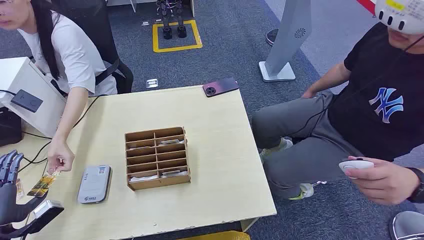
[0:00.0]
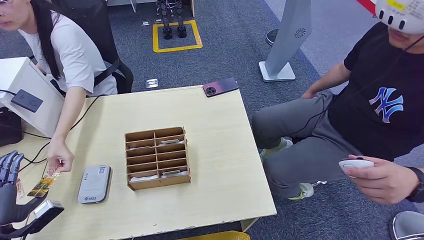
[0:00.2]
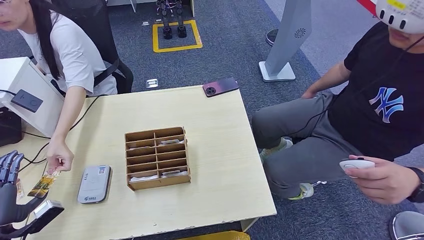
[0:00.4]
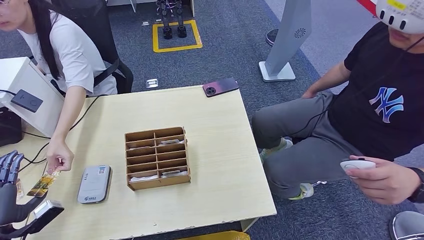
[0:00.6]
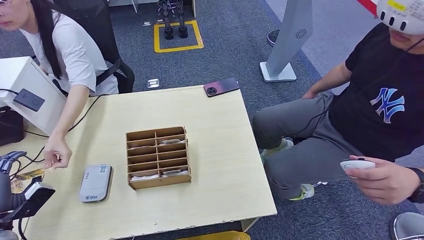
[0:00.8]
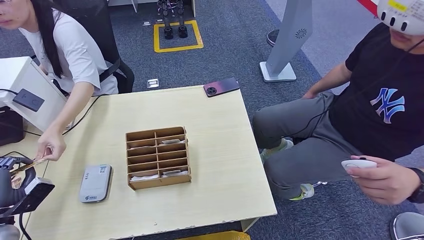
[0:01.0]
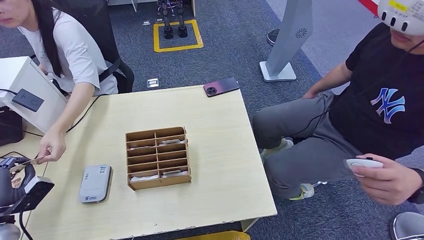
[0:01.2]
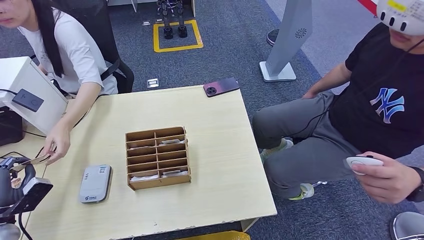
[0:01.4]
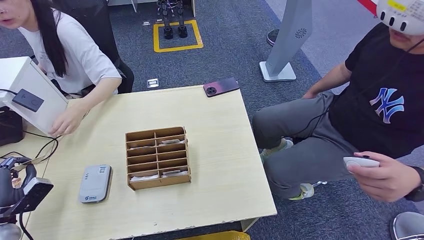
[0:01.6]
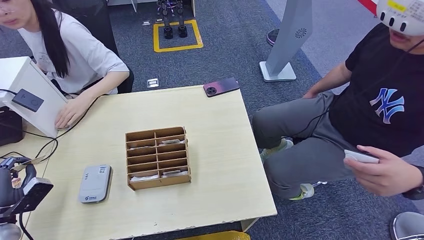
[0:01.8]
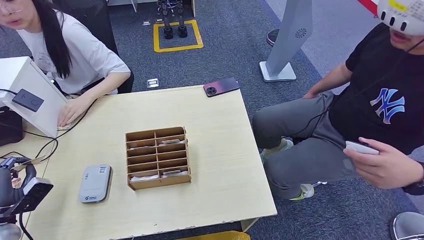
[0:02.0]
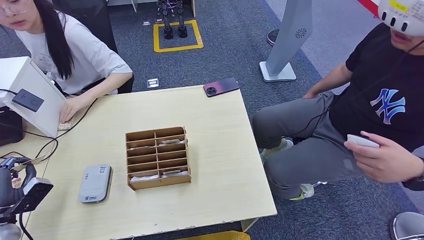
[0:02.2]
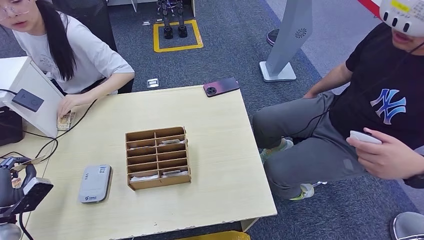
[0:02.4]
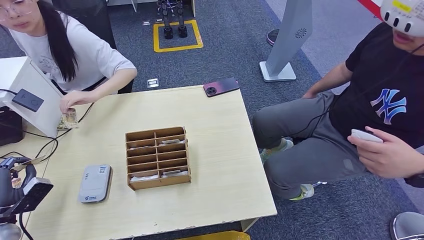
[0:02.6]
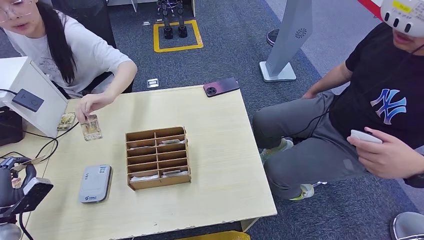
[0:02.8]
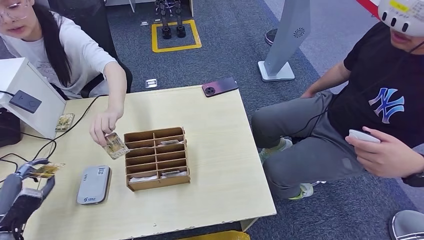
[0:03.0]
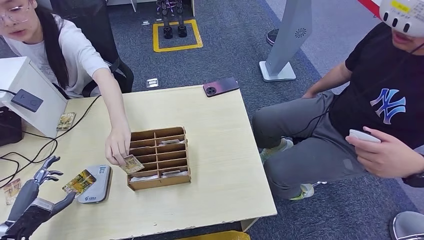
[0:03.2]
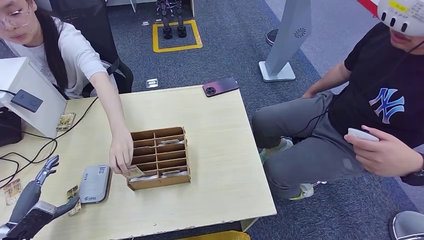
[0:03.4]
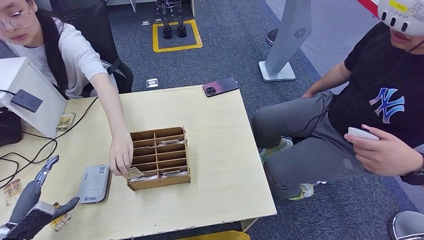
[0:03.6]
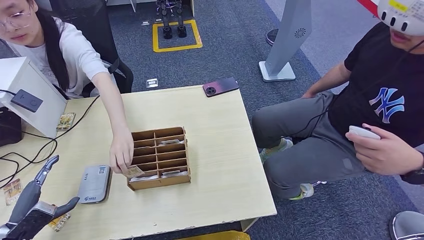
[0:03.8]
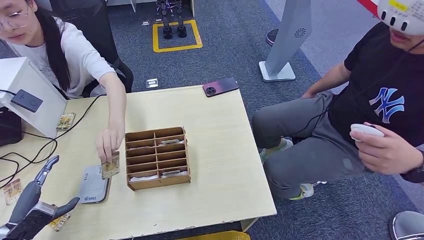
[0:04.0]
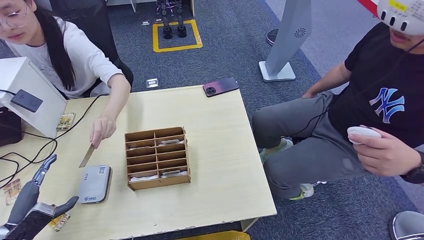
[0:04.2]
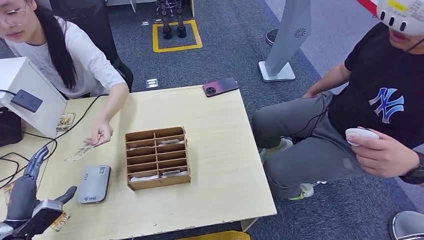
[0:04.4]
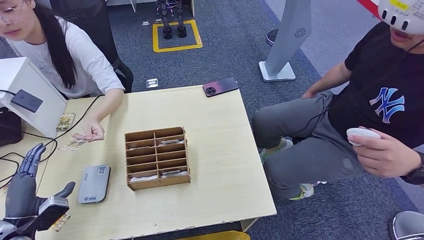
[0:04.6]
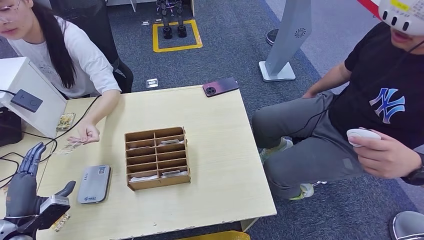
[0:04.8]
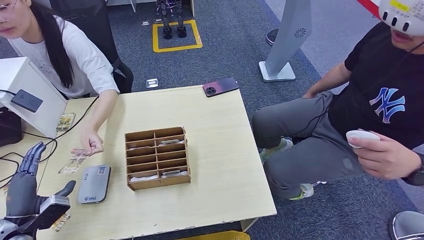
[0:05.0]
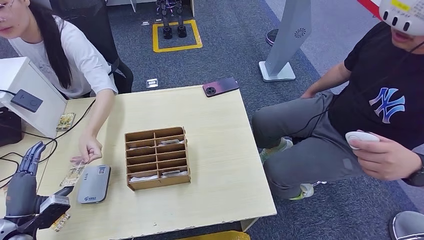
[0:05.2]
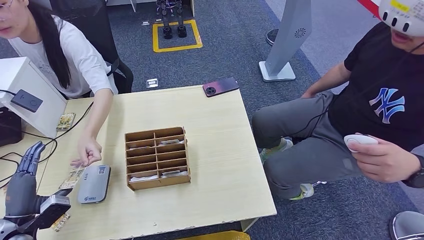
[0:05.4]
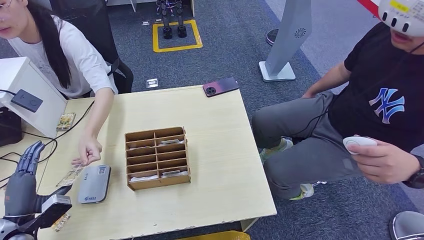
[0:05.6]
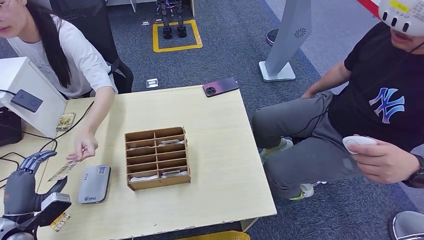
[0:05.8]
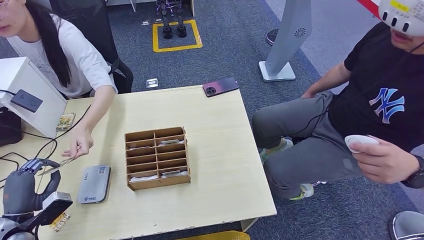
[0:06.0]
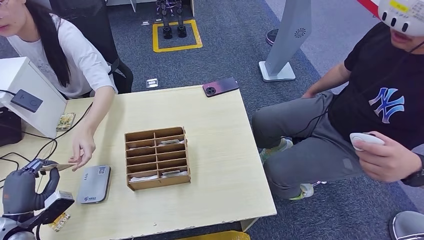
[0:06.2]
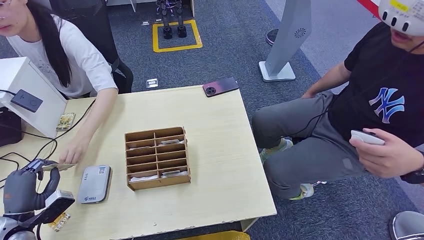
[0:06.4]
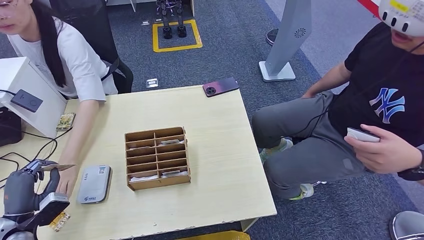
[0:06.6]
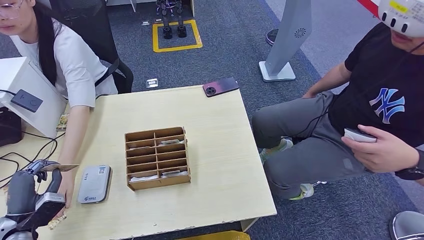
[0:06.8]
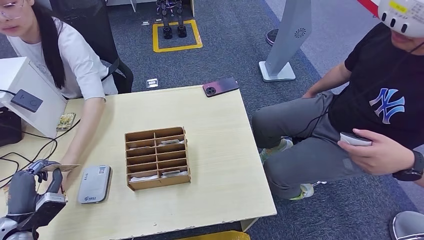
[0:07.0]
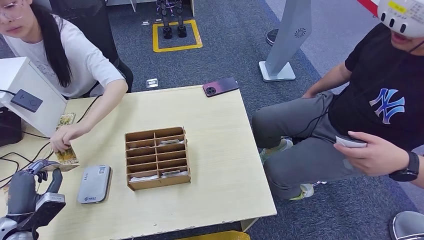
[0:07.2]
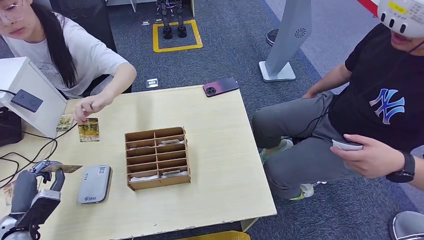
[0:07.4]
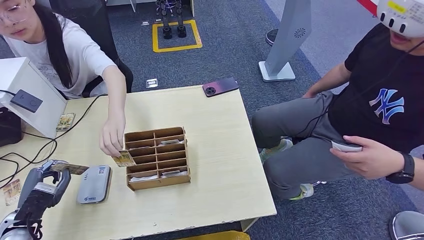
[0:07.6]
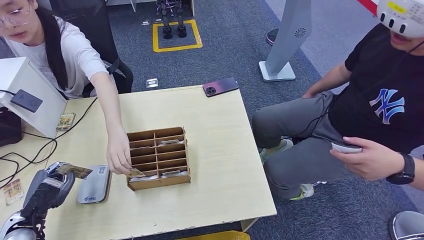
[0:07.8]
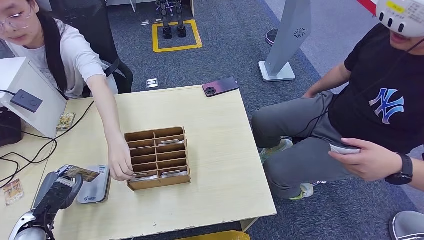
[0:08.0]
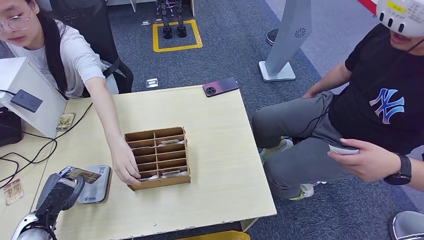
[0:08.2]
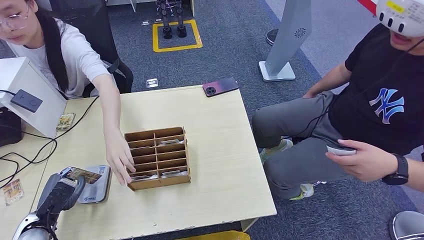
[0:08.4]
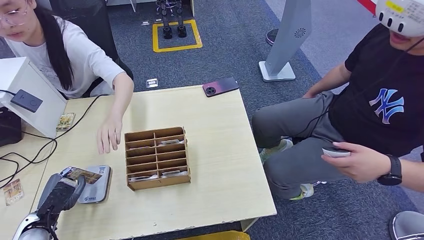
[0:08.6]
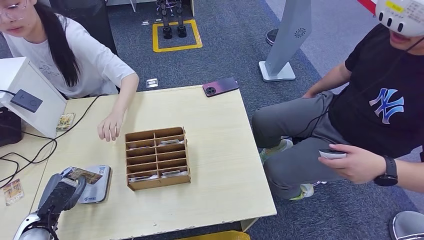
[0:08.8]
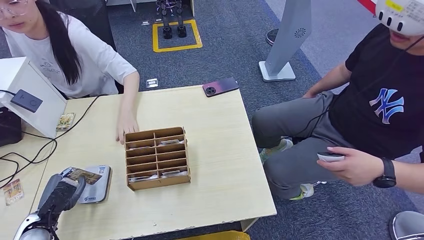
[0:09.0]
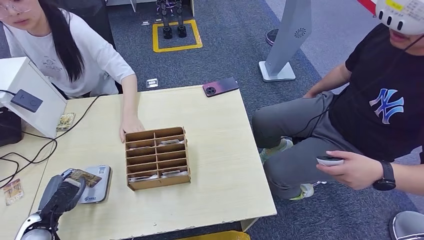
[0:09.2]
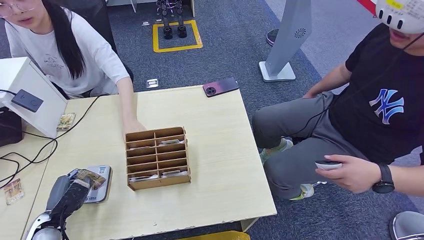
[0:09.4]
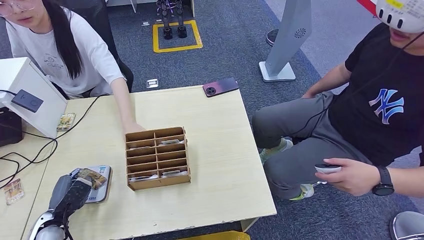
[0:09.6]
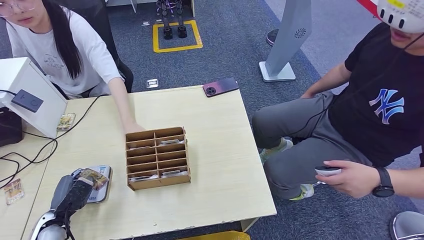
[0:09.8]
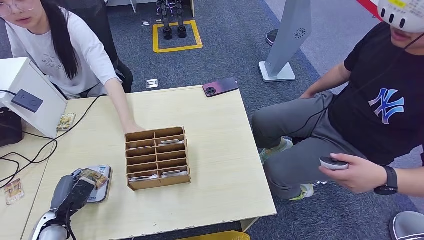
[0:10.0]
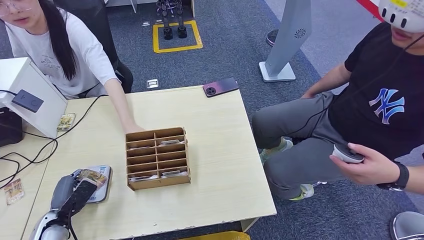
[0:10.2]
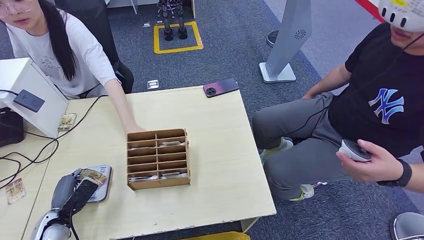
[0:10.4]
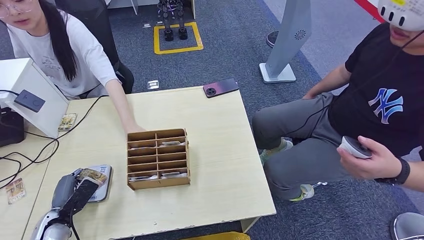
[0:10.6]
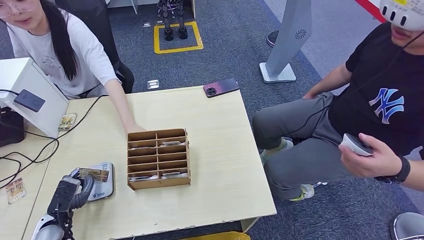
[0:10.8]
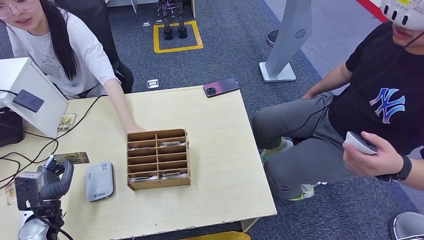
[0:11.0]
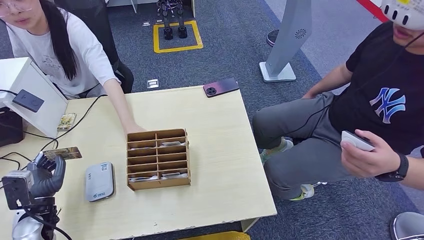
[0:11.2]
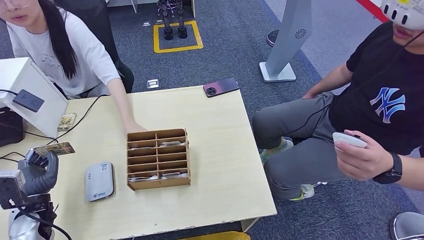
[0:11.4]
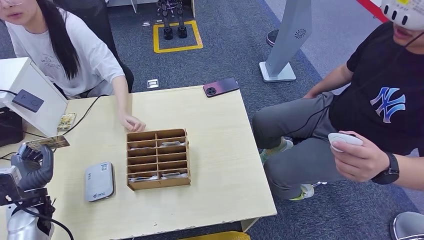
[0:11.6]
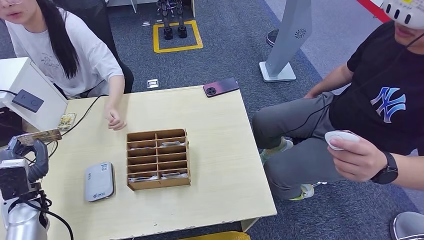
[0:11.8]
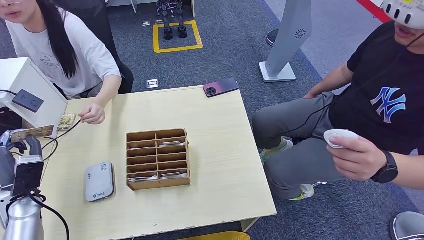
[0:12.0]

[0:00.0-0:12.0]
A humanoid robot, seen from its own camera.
Step, 0:00.0 to 0:01.6: Take the ID card from the person's hand.
Step, 0:01.8 to 0:08.8: Place the ID card on the card reader.
0:03.0 to 0:06.0: The hands move only a little.
0:07.6 to 0:09.0: The hands move only a little.
0:09.0 to 0:10.4: The hands stay close to where they were, moving slightly.
0:10.4 to 0:12.0: The left hand is displaced upward and forward by some 10 cm.

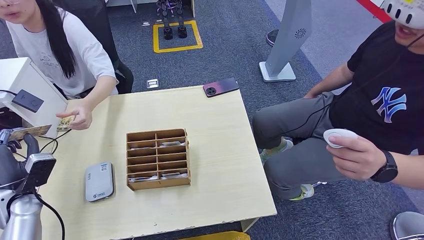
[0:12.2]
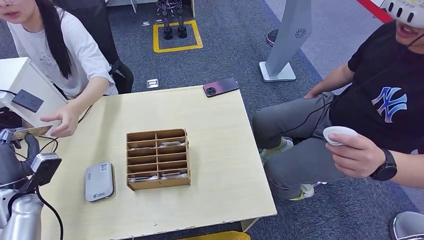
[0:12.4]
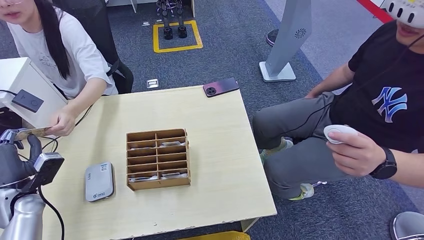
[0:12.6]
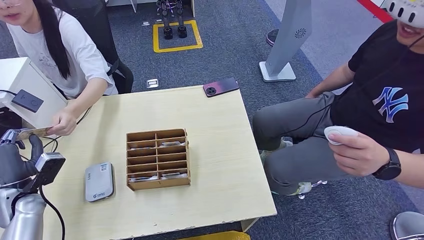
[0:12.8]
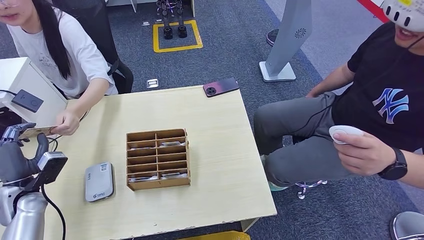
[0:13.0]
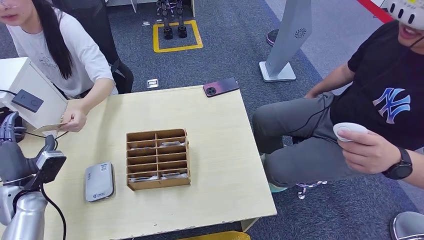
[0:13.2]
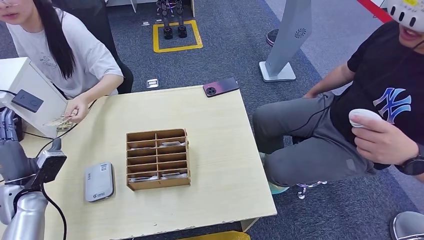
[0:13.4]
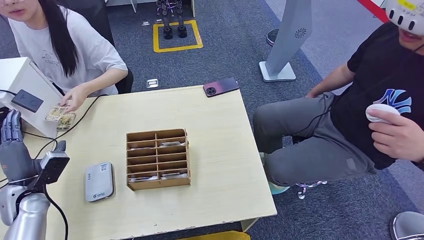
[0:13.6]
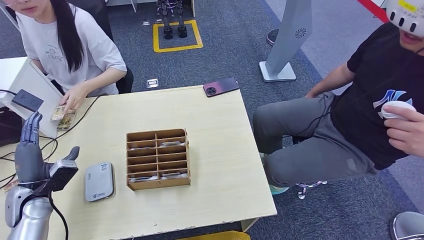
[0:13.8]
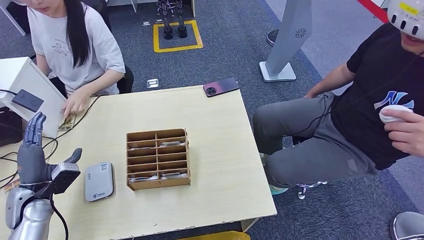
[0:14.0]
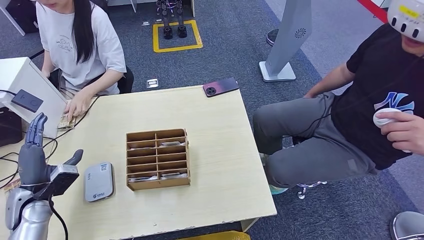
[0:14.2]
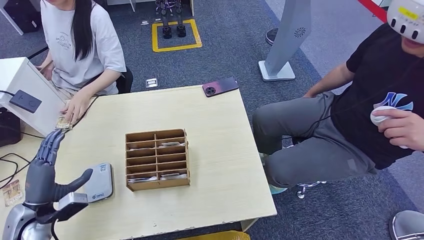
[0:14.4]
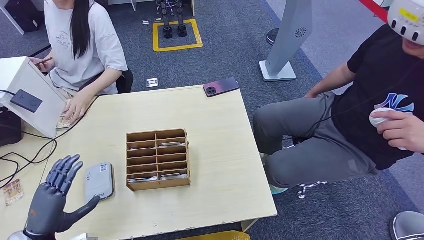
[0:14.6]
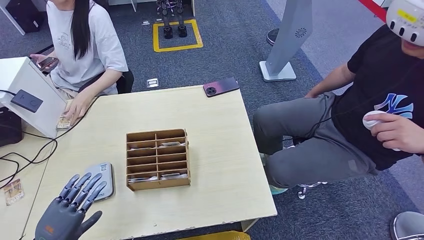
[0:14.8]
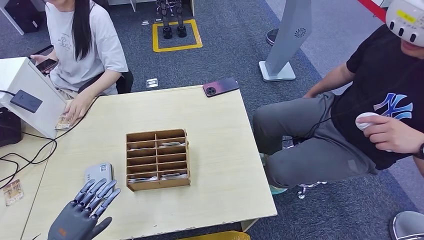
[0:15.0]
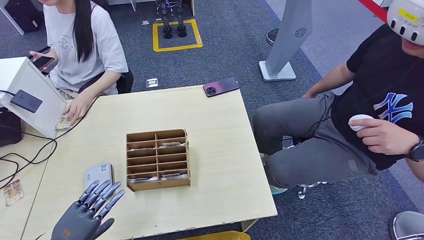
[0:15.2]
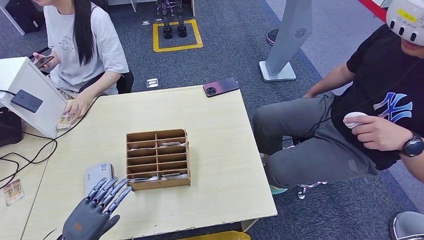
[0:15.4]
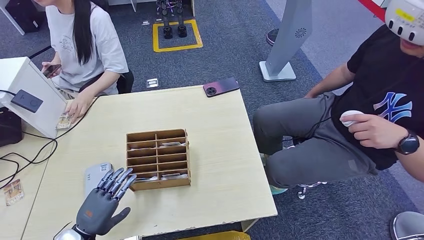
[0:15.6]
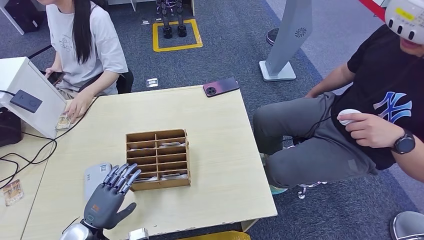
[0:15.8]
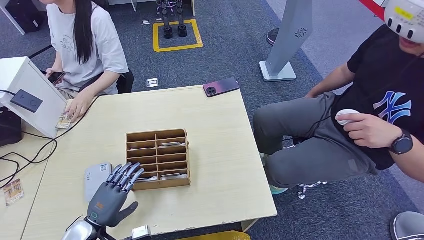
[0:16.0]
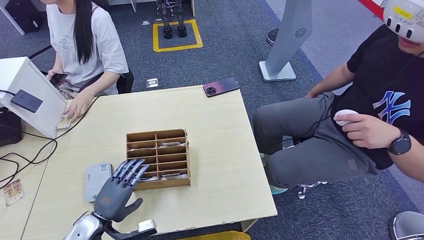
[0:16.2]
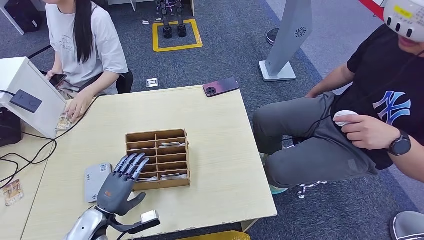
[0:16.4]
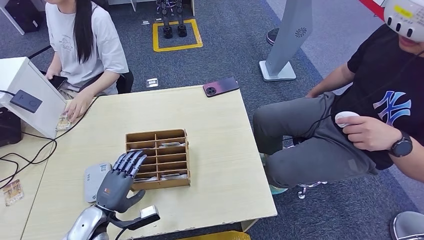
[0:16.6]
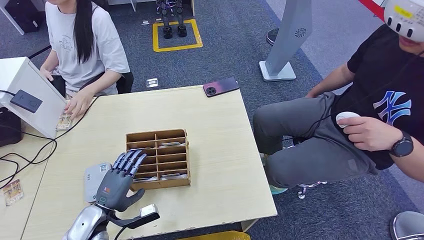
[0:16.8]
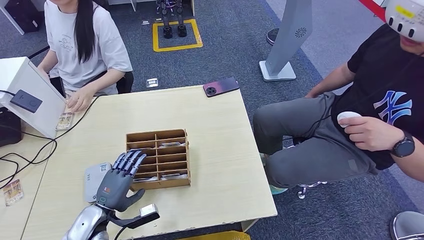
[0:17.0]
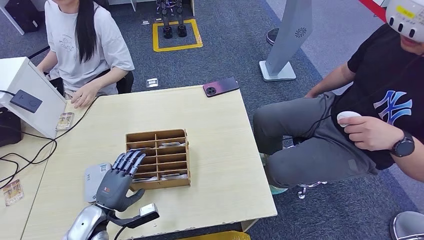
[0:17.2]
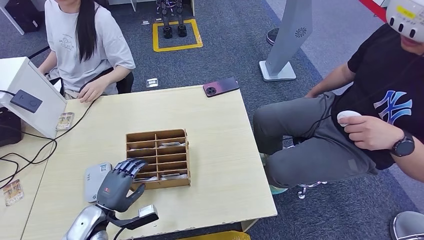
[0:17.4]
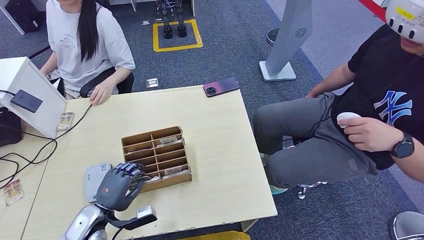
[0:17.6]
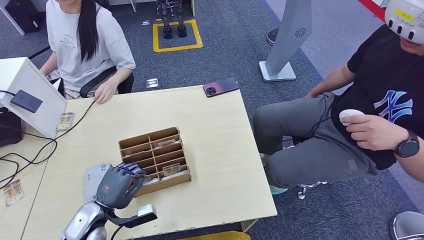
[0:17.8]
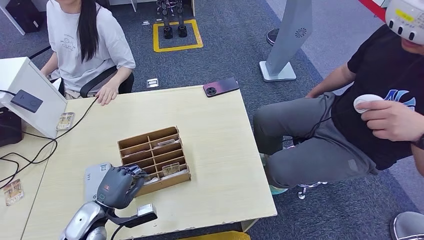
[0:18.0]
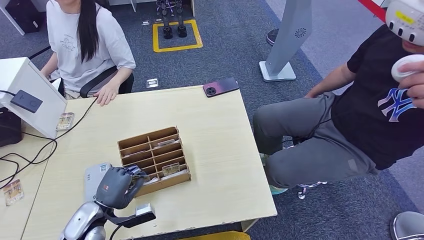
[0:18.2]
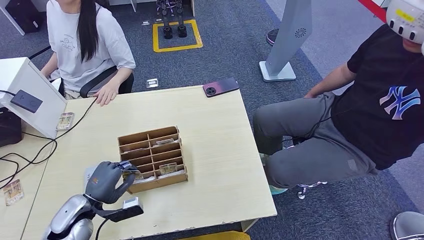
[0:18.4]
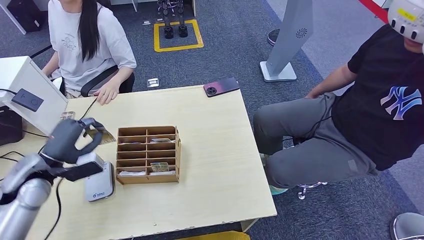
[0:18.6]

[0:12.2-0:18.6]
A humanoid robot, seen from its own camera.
Step, 0:13.4 to 0:18.6: Pick up the room key from the key card box.
0:13.8 to 0:15.4: The left hand moves backward and to the right, some 15 cm.
0:15.4 to 0:17.0: The left hand is displaced forward and to the right by some 10 cm.
